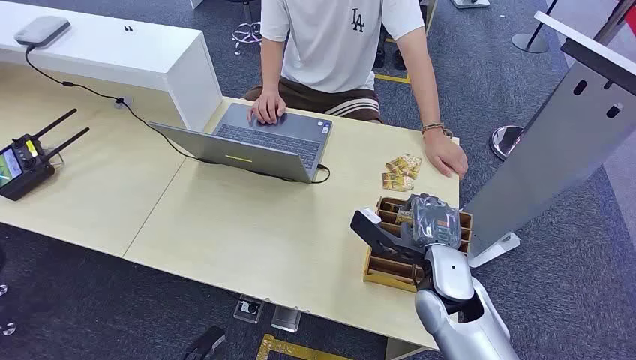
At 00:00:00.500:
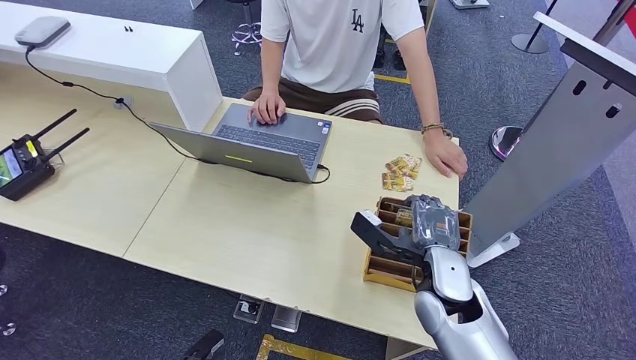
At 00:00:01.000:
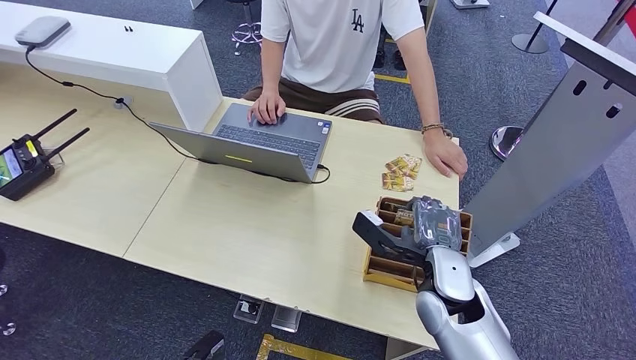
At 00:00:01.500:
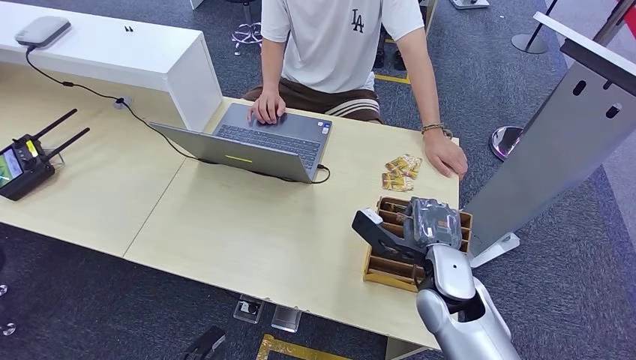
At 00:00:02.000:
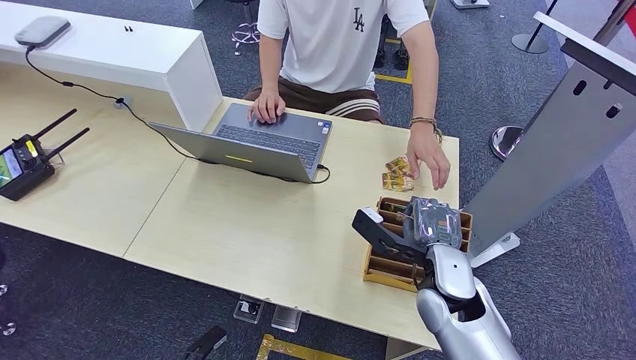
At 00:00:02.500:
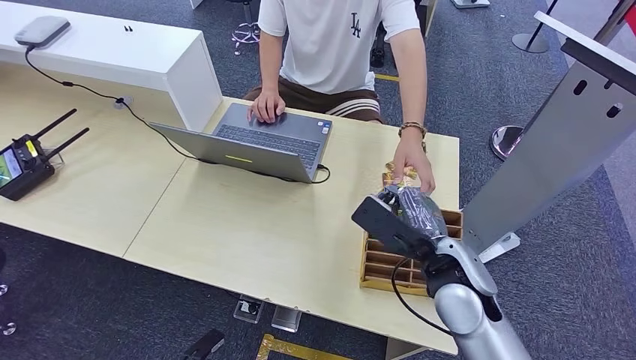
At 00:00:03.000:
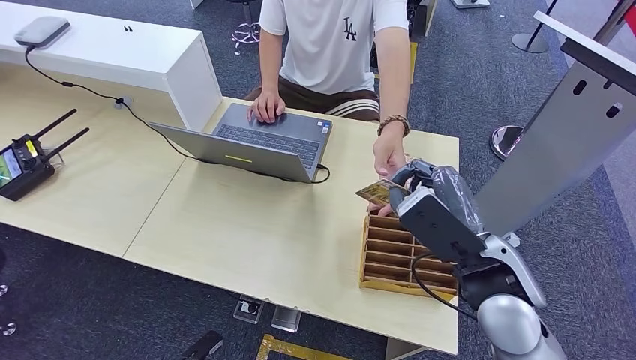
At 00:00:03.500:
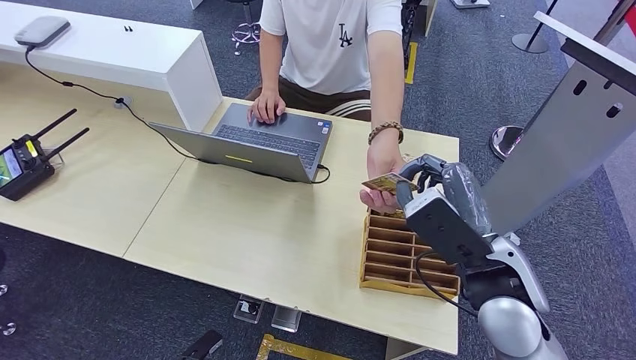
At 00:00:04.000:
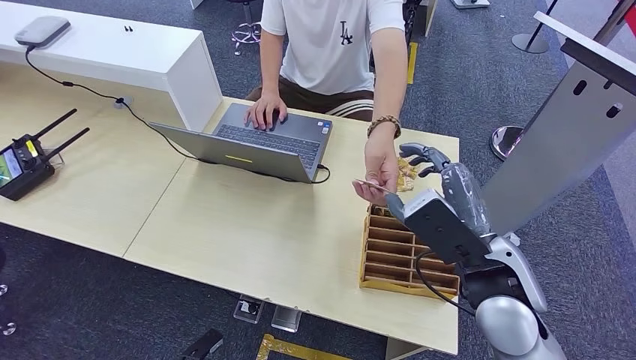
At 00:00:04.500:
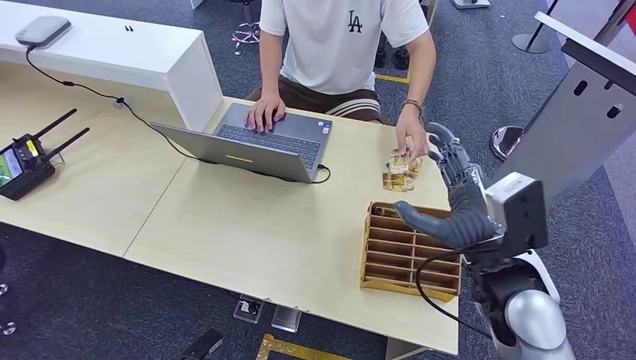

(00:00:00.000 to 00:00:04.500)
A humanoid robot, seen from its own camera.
Step, 00:00:00.000 - 00:00:02.000: Pick up the room card from the card holder.
Step, 00:00:02.500 - 00:00:04.500: Hand the room card to the target.
00:00:02.000 - 00:00:04.500: The right hand shifts roughly 10 cm upward.
